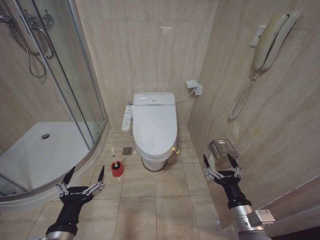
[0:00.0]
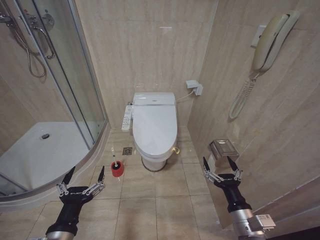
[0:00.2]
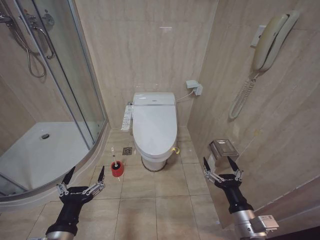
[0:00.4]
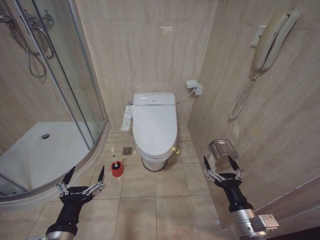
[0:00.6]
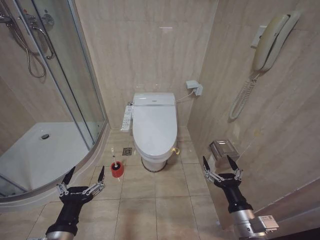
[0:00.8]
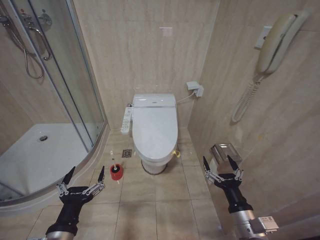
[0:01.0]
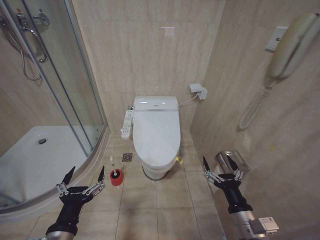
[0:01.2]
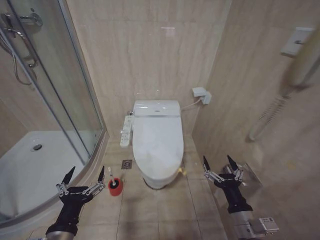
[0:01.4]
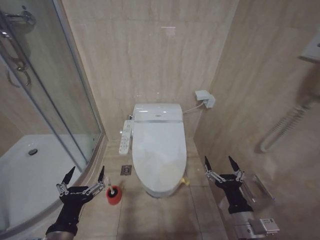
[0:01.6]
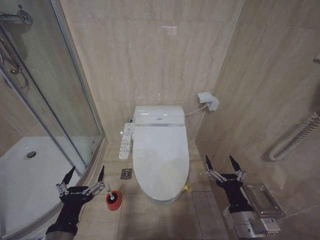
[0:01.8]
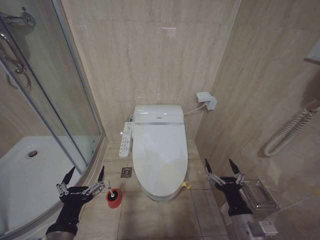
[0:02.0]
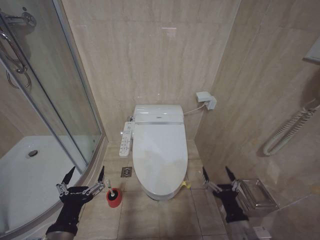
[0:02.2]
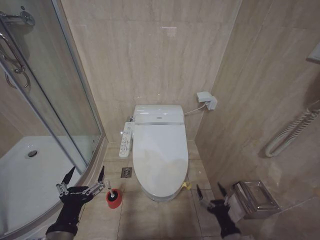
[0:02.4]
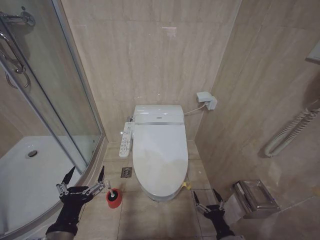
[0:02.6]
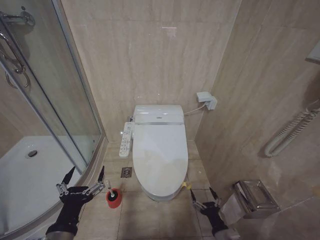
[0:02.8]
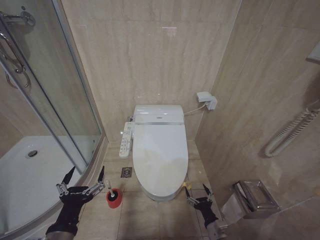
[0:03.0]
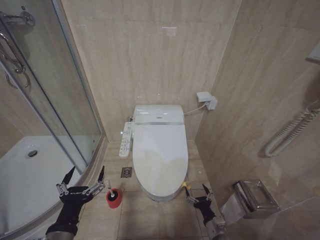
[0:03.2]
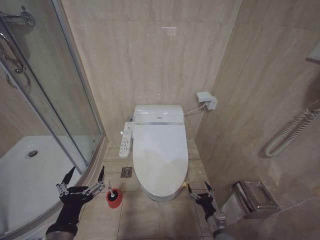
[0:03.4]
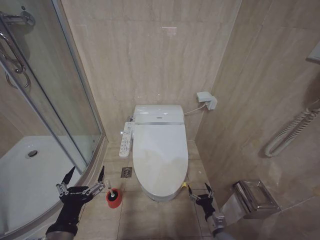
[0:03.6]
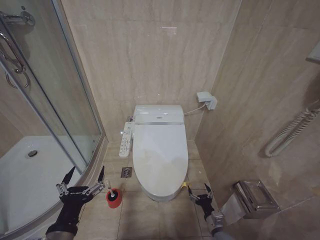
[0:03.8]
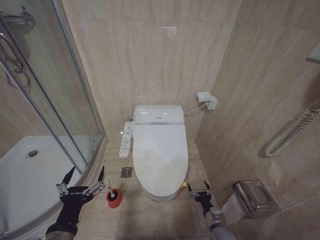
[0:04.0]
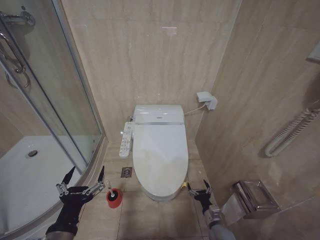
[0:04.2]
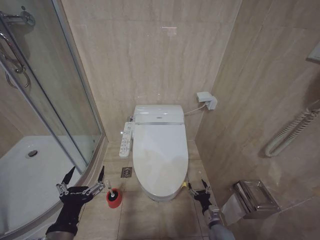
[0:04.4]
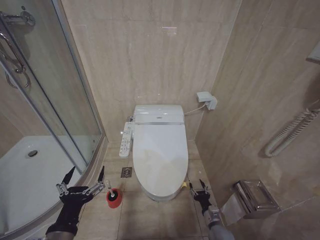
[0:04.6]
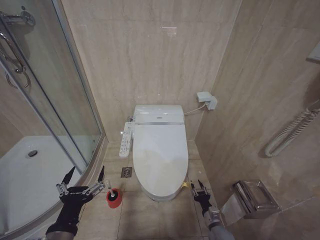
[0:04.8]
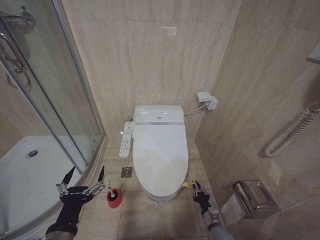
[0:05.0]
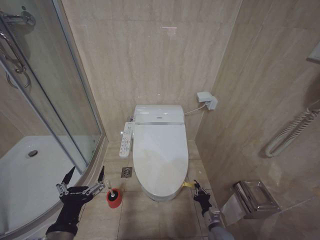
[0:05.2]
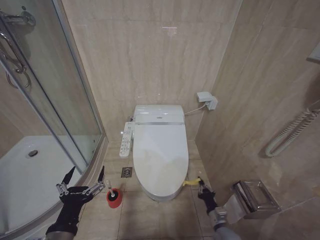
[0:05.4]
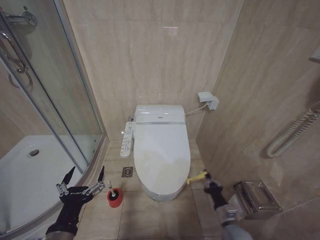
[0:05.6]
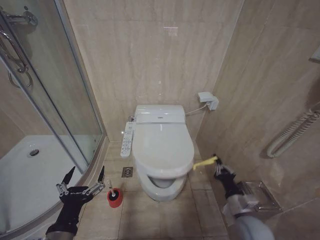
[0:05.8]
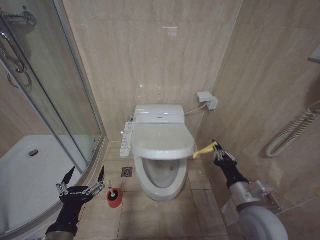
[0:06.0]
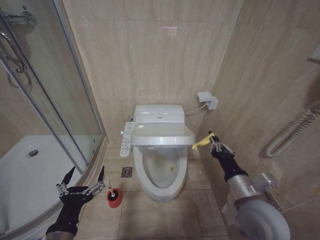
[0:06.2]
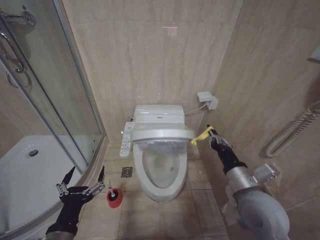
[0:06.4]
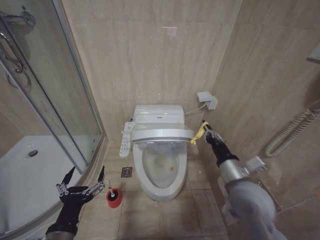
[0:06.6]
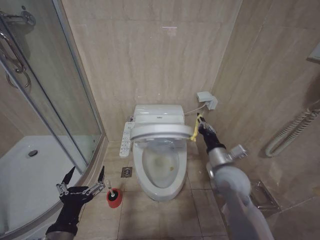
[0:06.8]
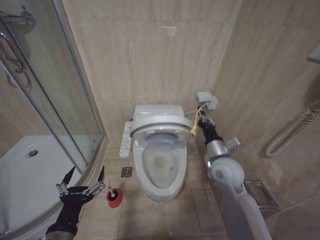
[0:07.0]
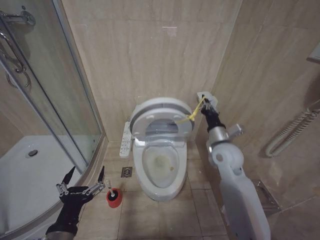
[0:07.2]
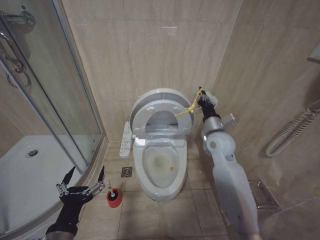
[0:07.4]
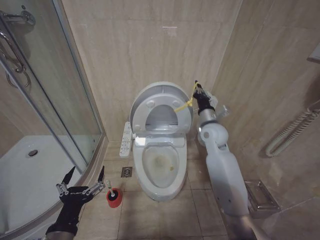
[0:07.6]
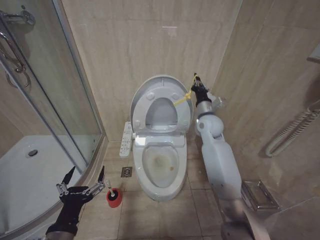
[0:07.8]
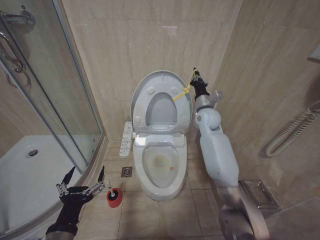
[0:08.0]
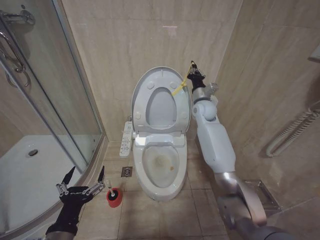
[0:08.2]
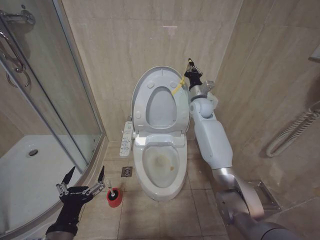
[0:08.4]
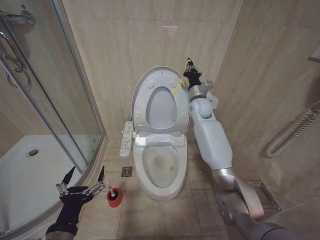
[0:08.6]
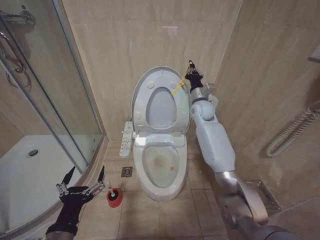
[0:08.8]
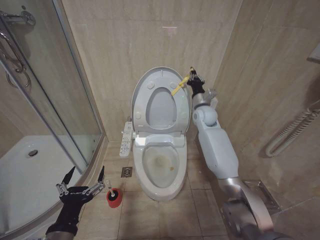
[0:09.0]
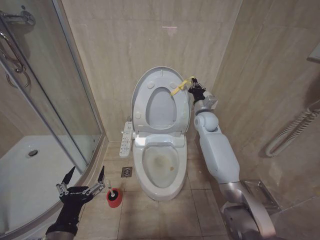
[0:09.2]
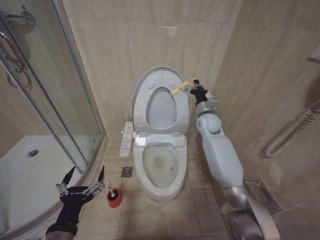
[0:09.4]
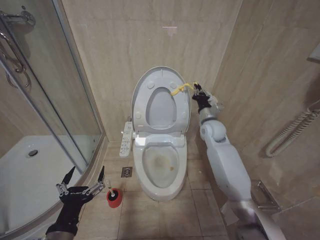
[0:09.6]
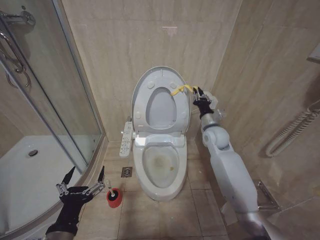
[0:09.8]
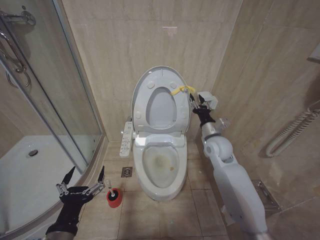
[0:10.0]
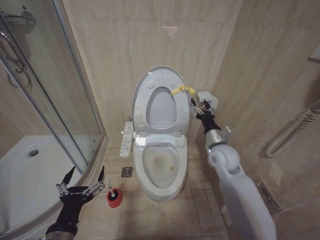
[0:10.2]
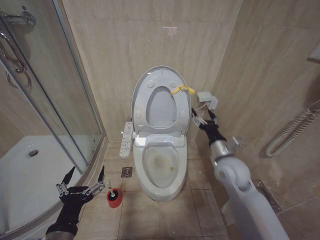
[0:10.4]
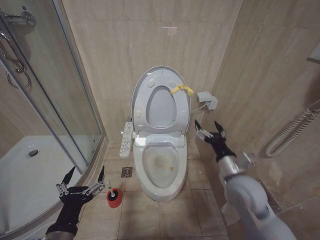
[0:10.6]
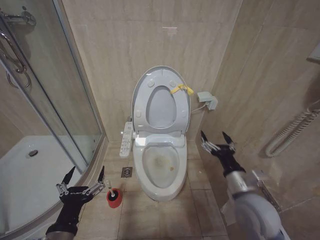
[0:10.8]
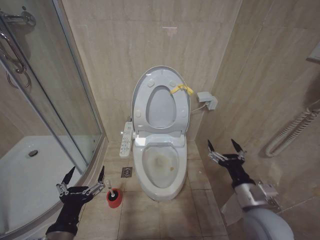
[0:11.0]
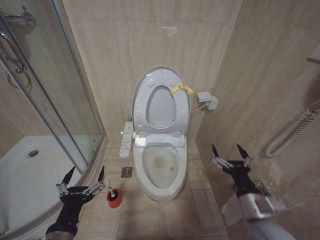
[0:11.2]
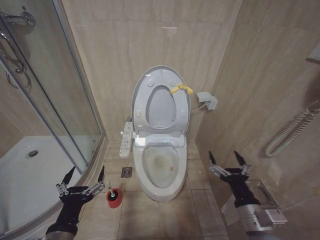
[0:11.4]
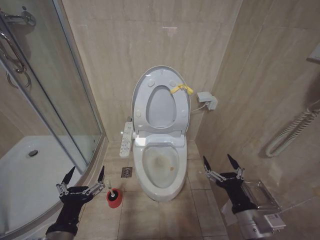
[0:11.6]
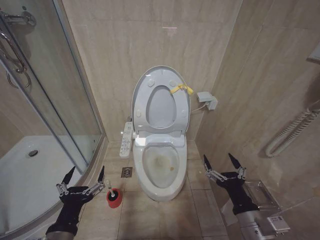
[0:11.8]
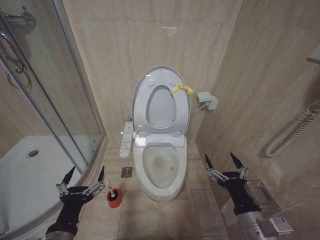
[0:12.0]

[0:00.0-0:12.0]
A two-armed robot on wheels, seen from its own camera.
Task of the whole recording: Open the toilet lid, clean the toilet bowl with a toilet brush, close the toilet lid, and flush.
0:01.6 to 0:03.0: The right gripper heads downward, covering approximately 20 cm.
0:03.0 to 0:04.4: The right gripper travels forward and downward by roughly 10 cm.
0:04.4 to 0:06.0: The right gripper travels upward by some 25 cm, and closes up.
0:06.0 to 0:07.6: The right gripper shifts some 25 cm forward and upward.
0:07.6 to 0:09.0: The right gripper is displaced forward by approximately 10 cm.
0:09.0 to 0:10.4: The right gripper shifts approximately 25 cm backward and downward, and opens.
0:10.4 to 0:12.0: The right gripper is displaced backward by approximately 20 cm.

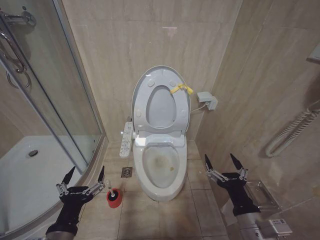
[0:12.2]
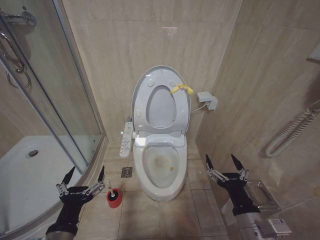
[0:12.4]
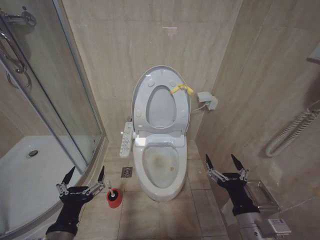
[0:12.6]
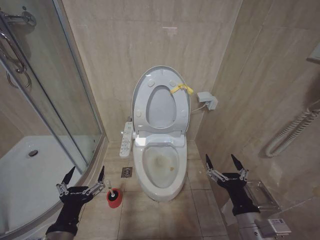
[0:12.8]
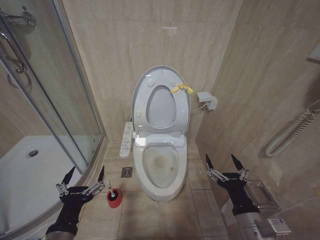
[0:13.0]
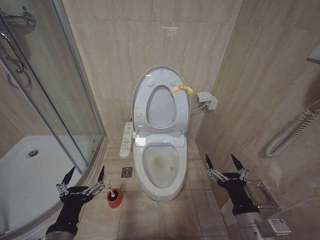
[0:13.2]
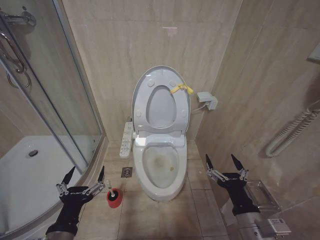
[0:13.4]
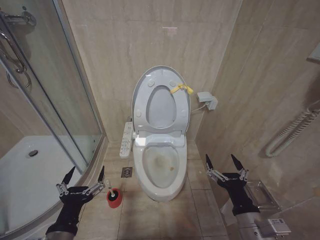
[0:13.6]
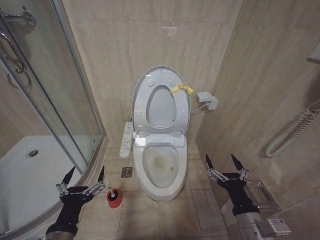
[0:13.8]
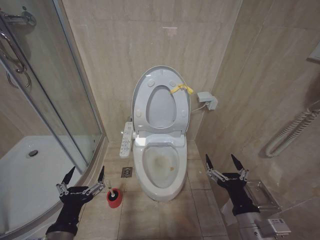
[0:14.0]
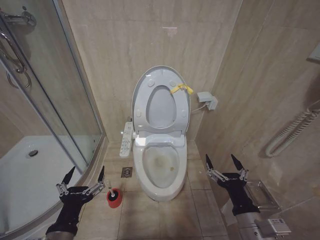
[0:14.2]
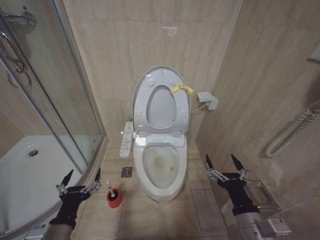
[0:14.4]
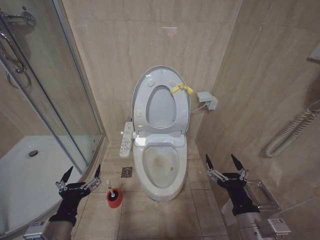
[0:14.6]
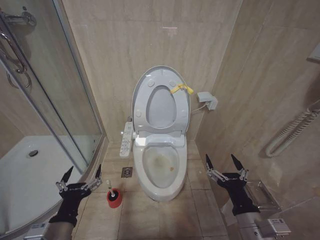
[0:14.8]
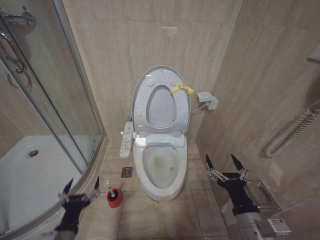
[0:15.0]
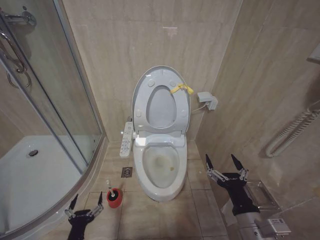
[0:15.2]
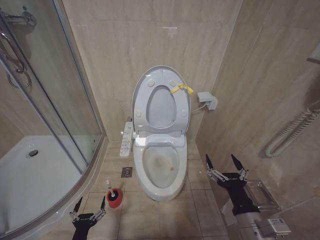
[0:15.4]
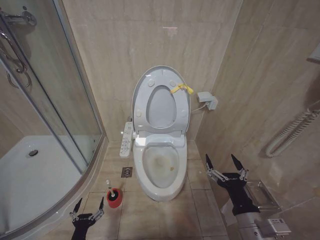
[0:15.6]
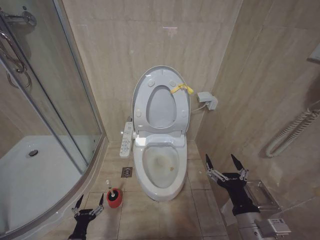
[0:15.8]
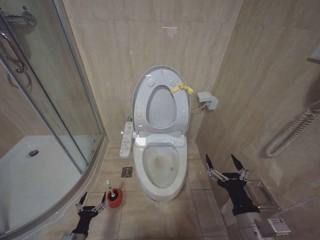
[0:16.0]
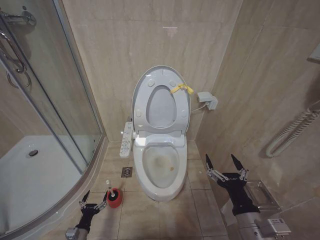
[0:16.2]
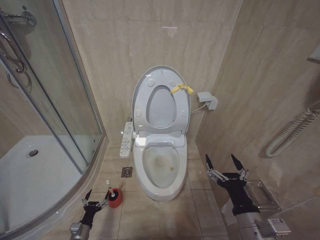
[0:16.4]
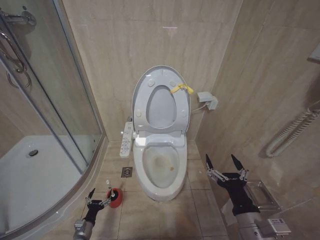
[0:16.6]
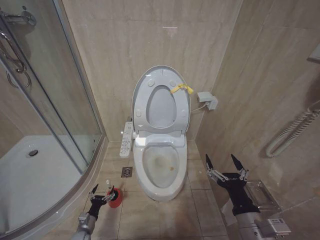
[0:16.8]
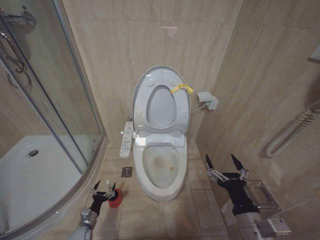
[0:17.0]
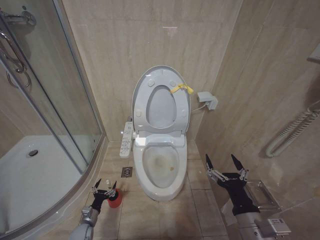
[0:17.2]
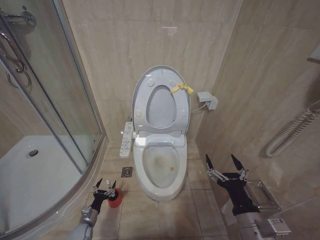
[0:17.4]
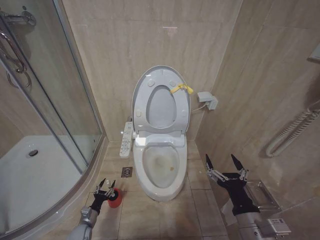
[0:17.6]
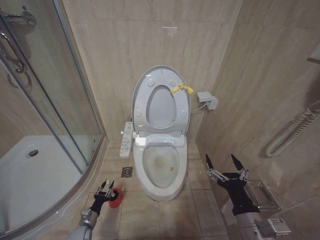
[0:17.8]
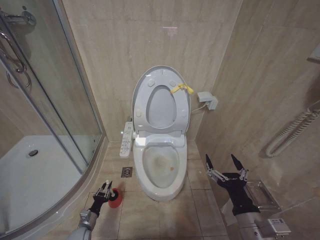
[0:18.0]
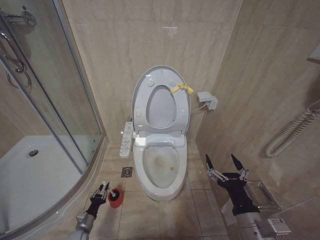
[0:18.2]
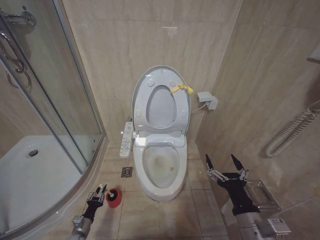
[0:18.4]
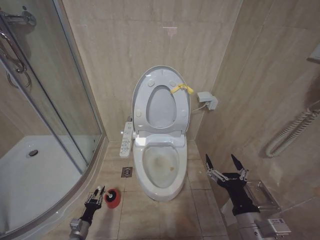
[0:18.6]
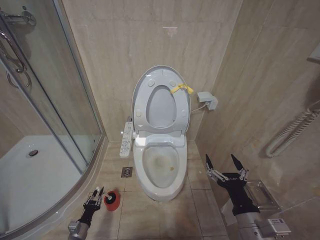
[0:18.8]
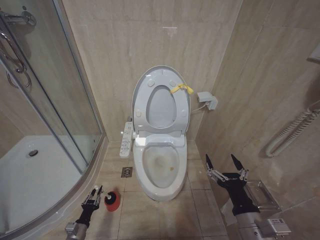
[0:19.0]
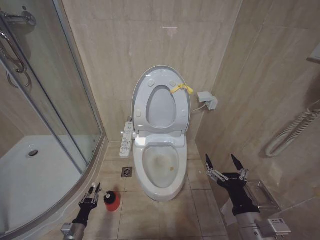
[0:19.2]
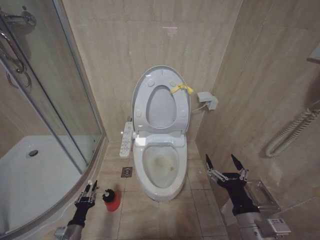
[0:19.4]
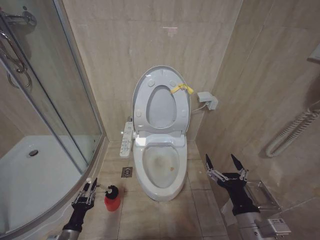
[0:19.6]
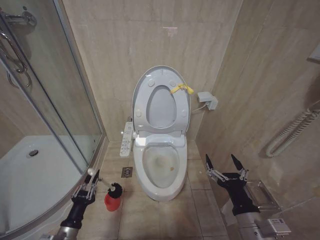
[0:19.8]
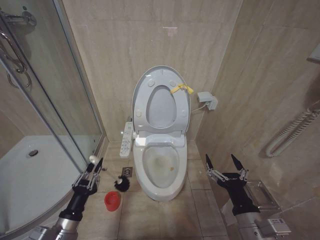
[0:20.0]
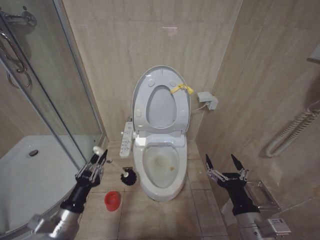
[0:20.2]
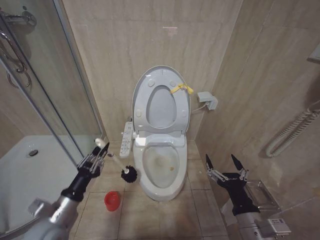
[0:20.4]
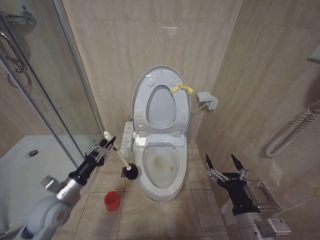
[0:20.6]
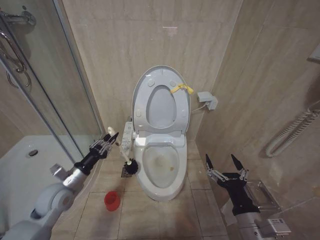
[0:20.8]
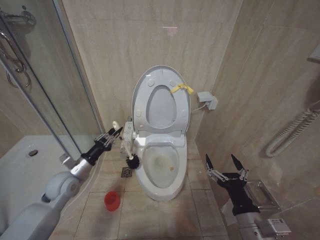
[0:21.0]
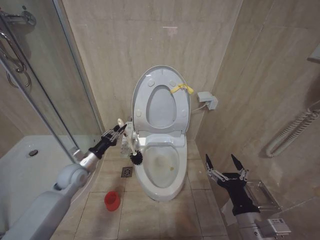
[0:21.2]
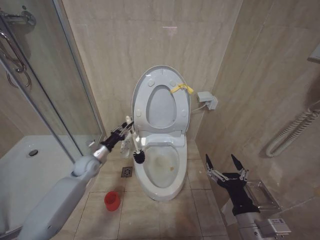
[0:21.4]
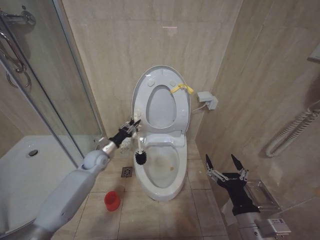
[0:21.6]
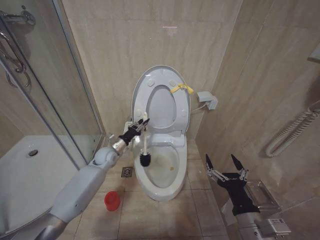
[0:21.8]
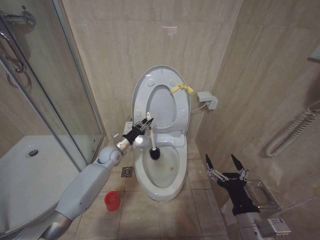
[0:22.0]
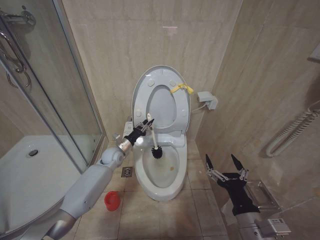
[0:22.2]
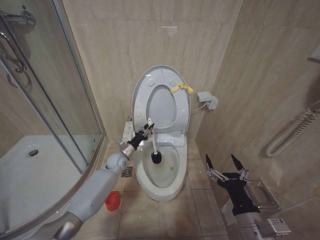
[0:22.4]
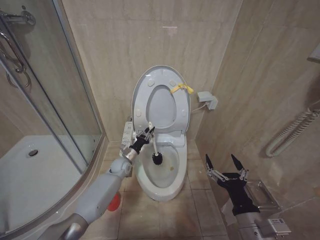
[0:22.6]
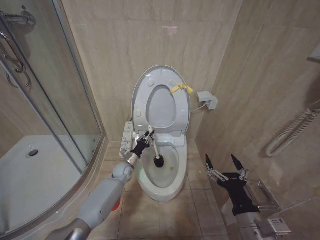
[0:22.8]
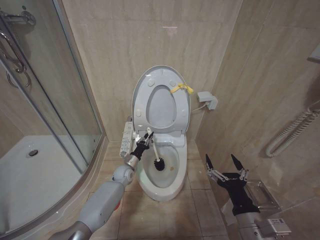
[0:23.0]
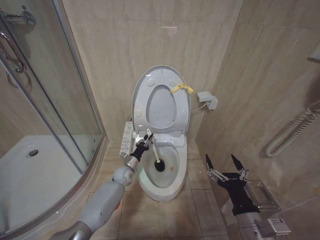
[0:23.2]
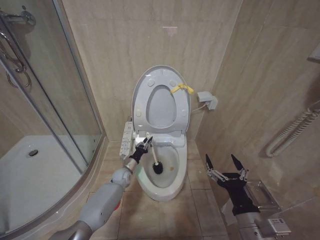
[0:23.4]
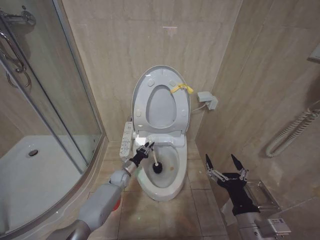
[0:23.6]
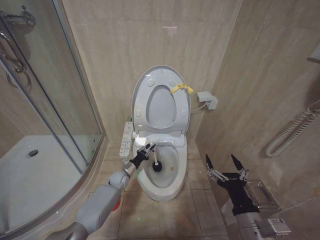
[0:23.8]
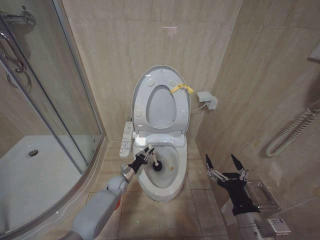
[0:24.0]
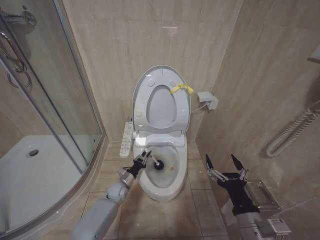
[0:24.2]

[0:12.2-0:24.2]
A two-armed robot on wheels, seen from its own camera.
Task of the whole recording: Open the toilet lid, clean the toilet bowl with a toilet brush, close the toilet lid, and flush.
0:12.2 to 0:13.8: Both grippers stay about where they are.
0:13.8 to 0:15.2: The left gripper heads downward, covering approximately 15 cm.
0:15.2 to 0:16.6: The left gripper is displaced downward and forward by approximately 20 cm.
0:16.6 to 0:18.2: The left gripper closes.
0:18.2 to 0:19.8: The left gripper moves upward and backward, approximately 20 cm.
0:19.8 to 0:21.2: The left gripper is displaced forward and upward by about 25 cm.
0:21.2 to 0:22.6: The left gripper moves to the right, forward and downward, some 20 cm.
0:22.6 to 0:24.2: The left gripper goes some 15 cm downward and backward.
